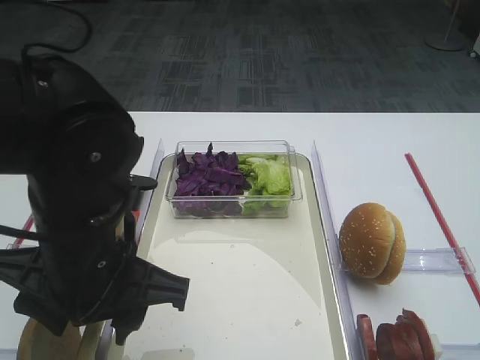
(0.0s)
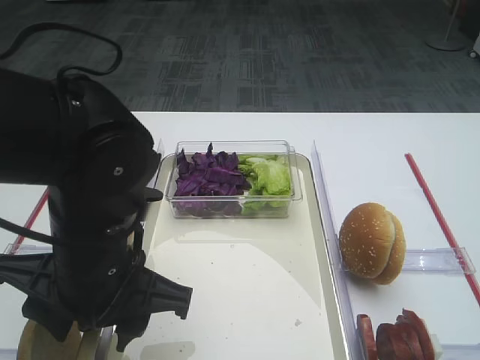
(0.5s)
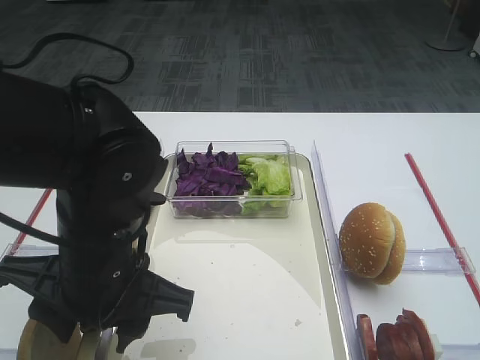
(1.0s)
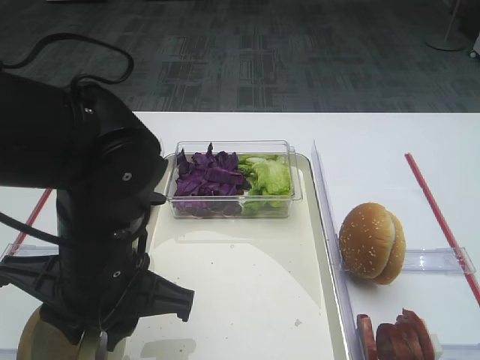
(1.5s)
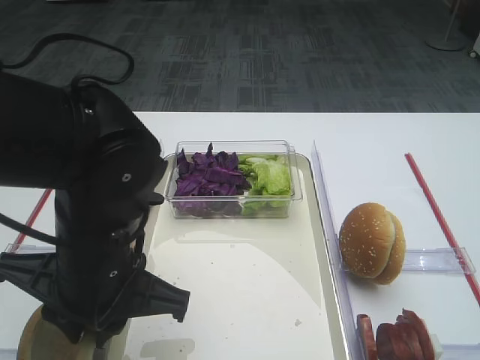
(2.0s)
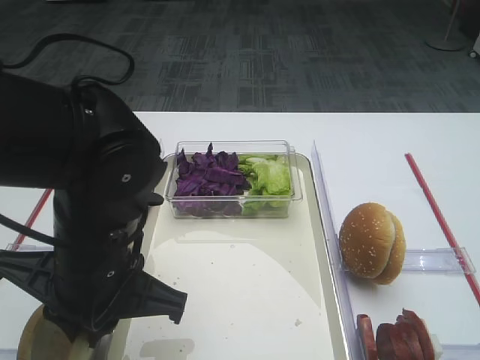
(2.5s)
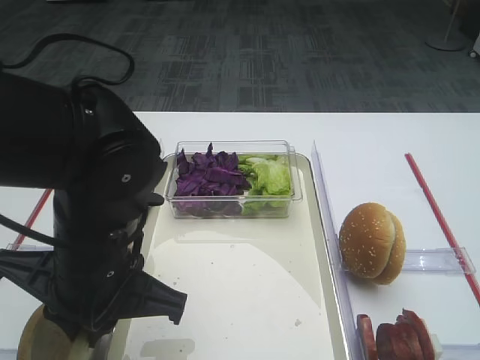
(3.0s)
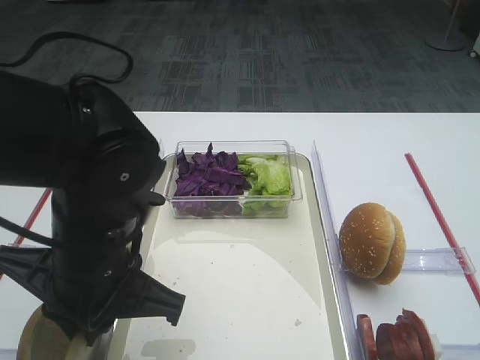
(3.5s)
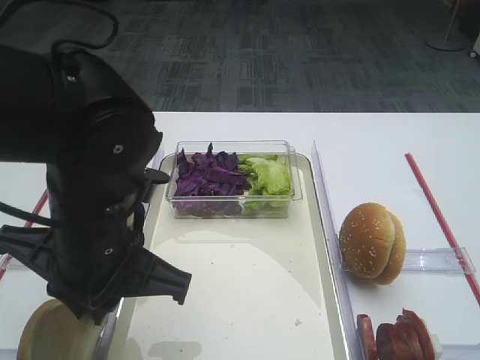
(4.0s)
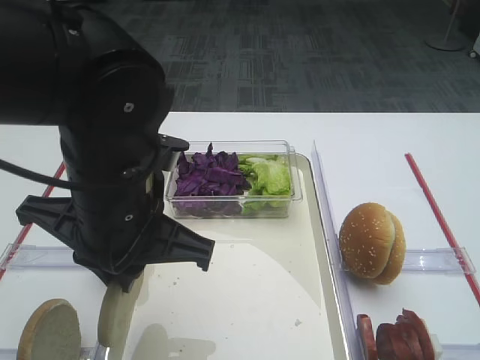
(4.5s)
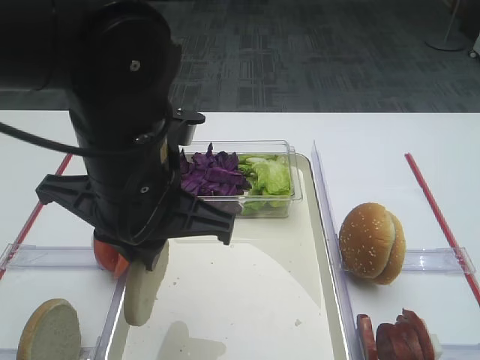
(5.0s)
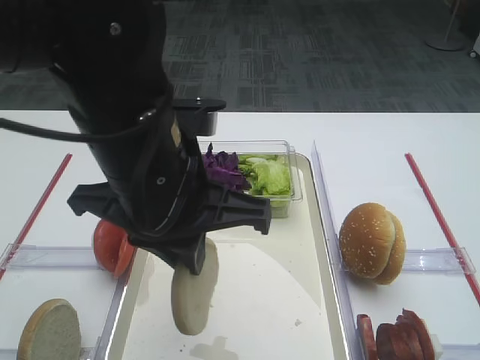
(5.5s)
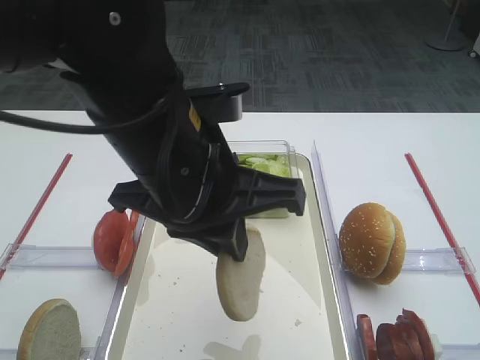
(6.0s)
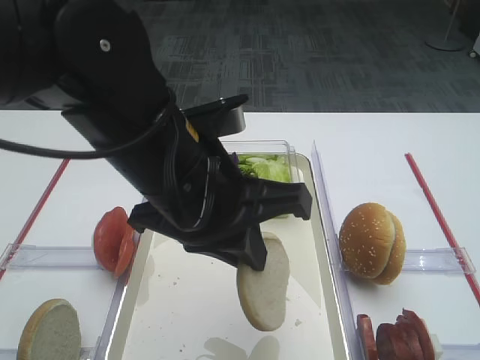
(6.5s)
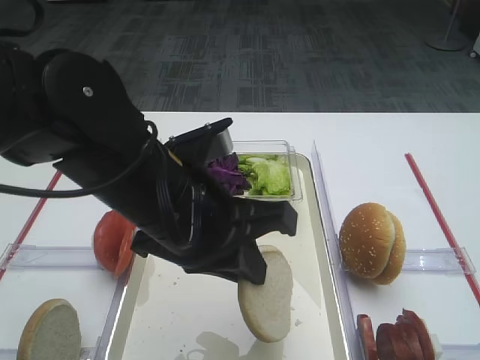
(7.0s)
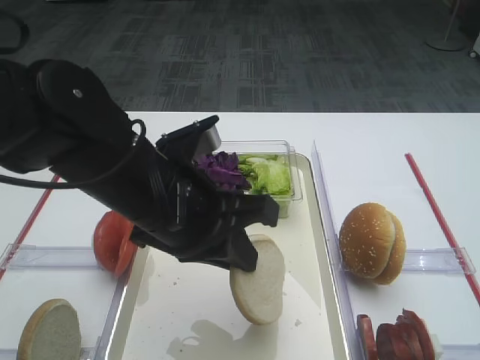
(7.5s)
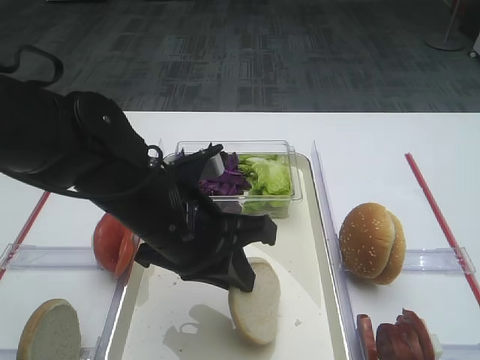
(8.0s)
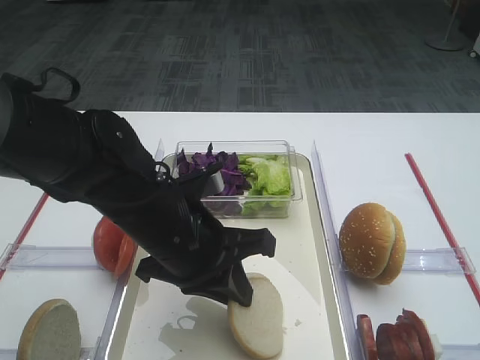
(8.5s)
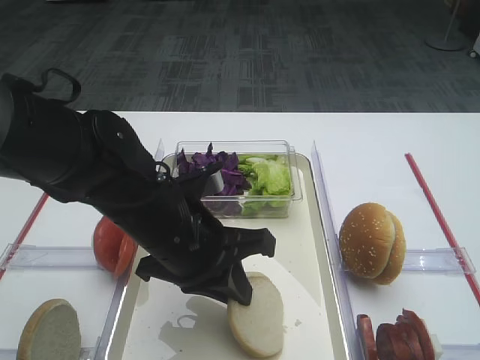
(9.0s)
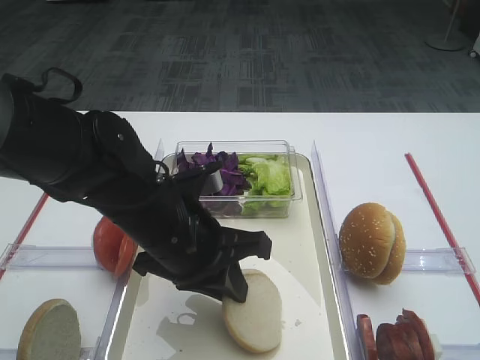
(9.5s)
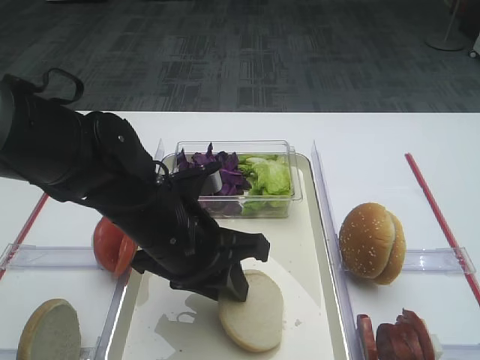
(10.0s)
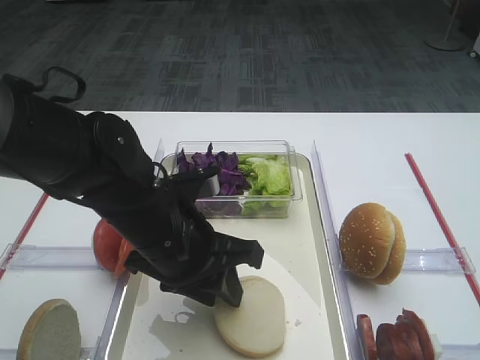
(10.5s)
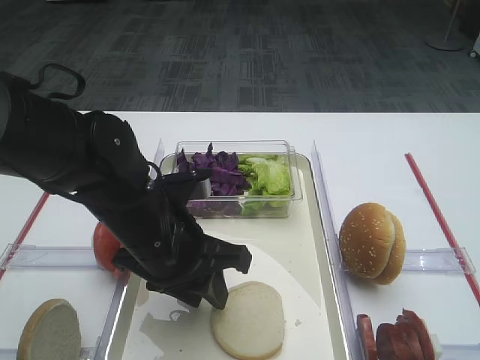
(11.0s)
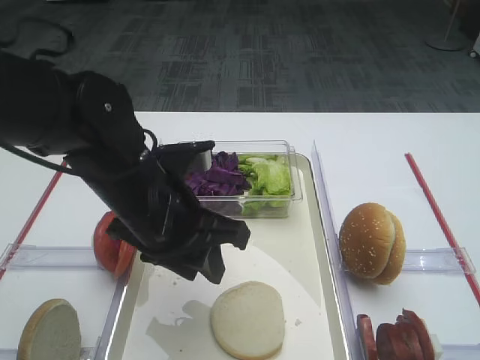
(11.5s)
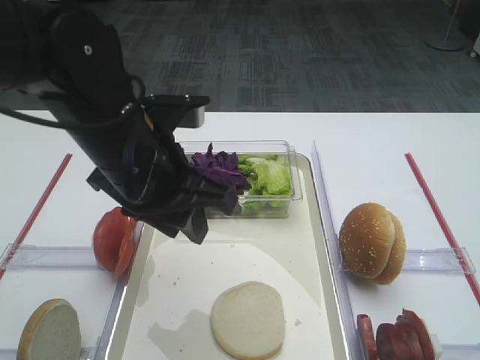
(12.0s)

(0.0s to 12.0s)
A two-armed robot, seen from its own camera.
Step, 0.0s - 4.0s: Pick up the bread slice with the left gripper.
Step, 4.5s - 11.5s: Place the bread slice on the tray with the left gripper.
0.0s - 2.0s: The left gripper closes up.
2.0s - 4.0s: The grippers make only small movements.
4.0s - 6.0s: The left gripper heads upward and to the right, covering some 10 cm.
6.0s - 8.0s: The left gripper goes roughly 10 cm downward.
8.0s - 10.0s: The grippers make only small movements.
10.0s - 12.0s: The left gripper shifts some 10 cm upward.

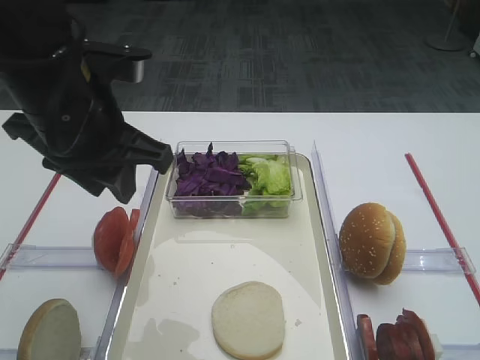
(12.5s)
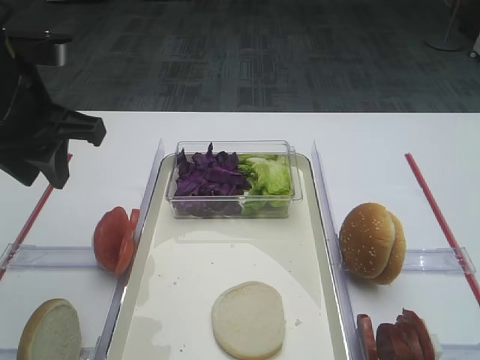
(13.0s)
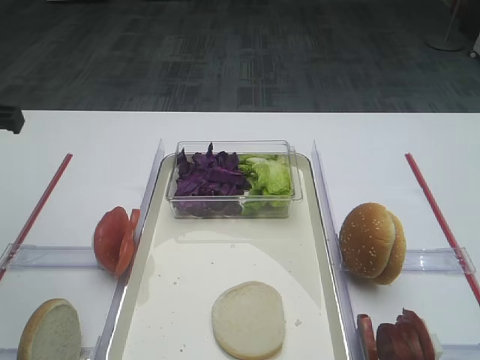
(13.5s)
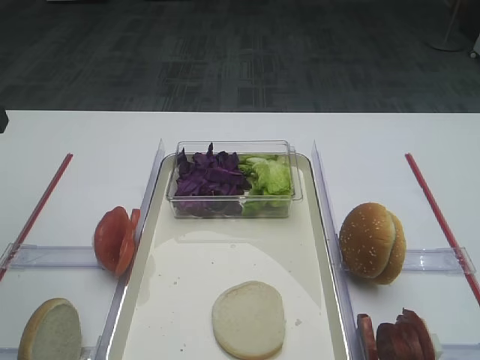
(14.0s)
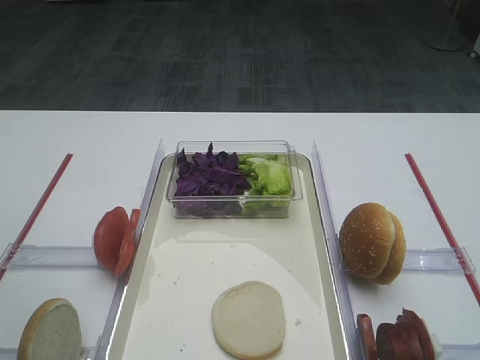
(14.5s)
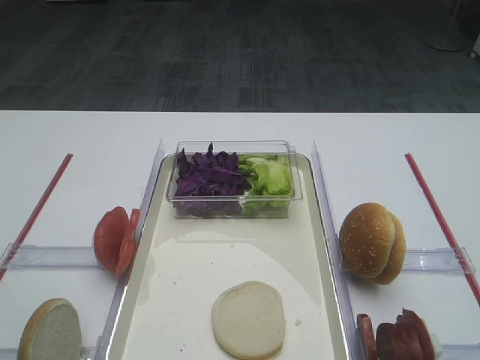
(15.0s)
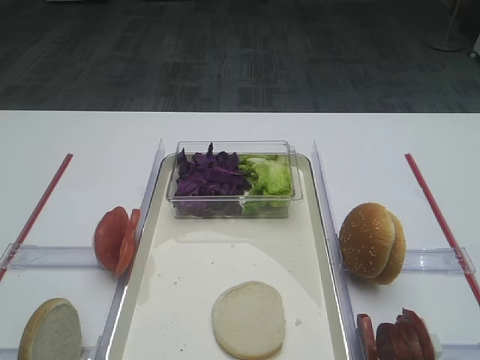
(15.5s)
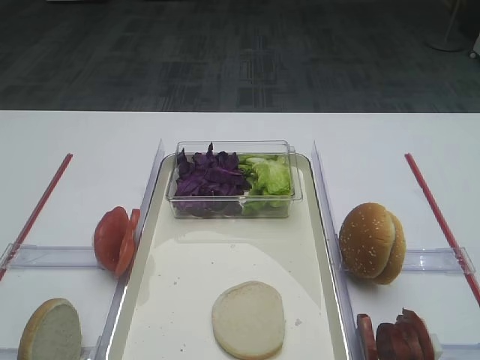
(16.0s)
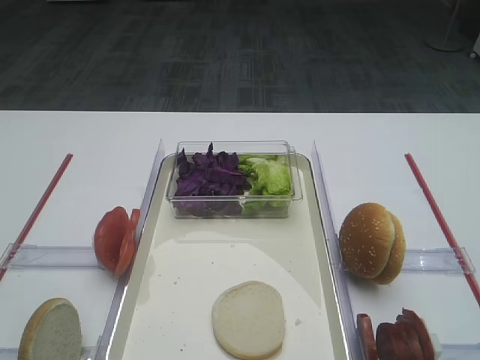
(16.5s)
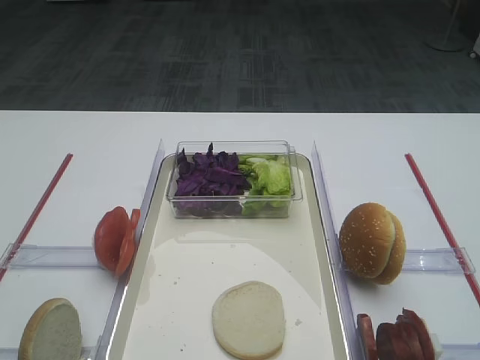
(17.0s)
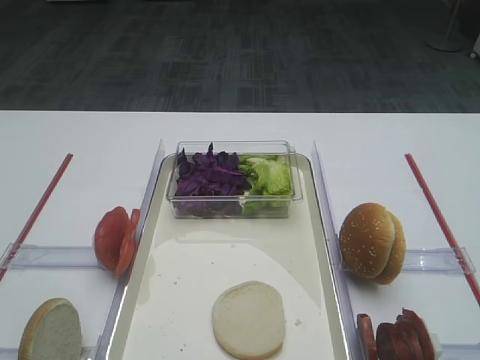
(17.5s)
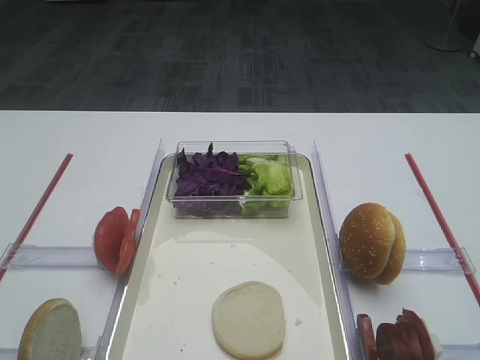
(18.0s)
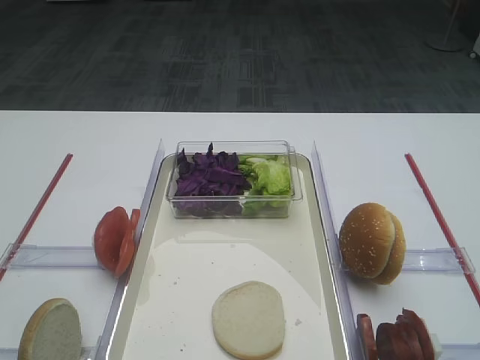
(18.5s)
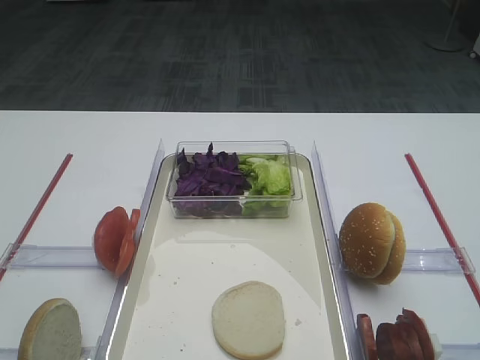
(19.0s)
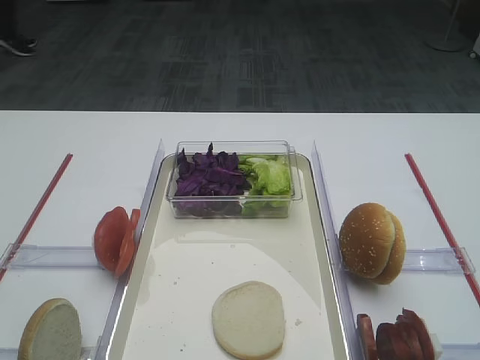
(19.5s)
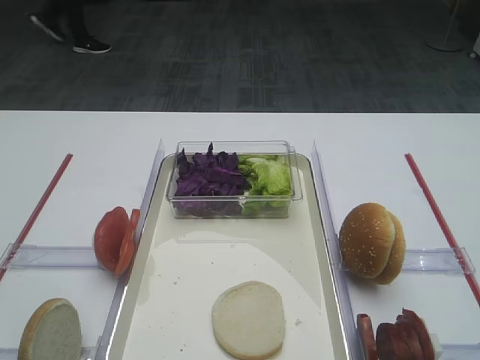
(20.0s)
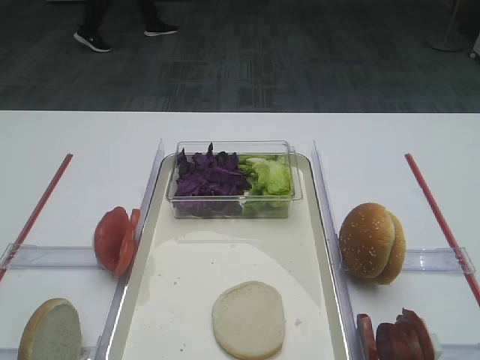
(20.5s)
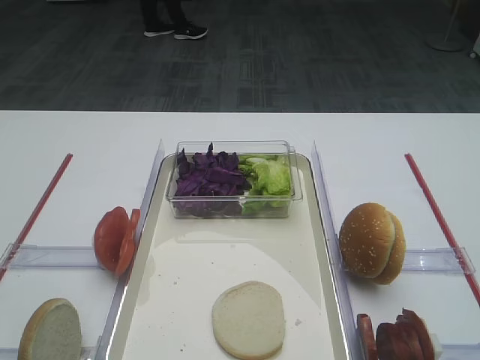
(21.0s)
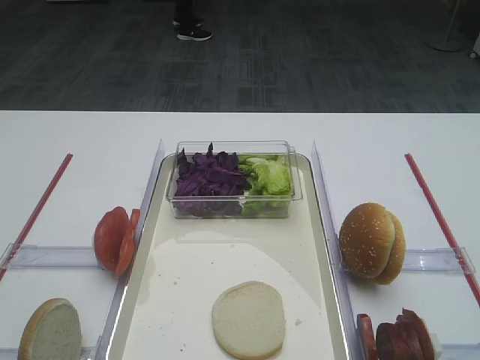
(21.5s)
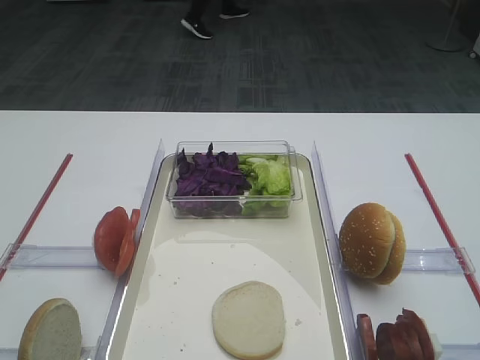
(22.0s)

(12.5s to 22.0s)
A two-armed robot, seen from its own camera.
12.5s - 14.5s: The left gripper travels to the left by approximately 15 cm.
18.0s - 22.0s: Both grippers stay put.

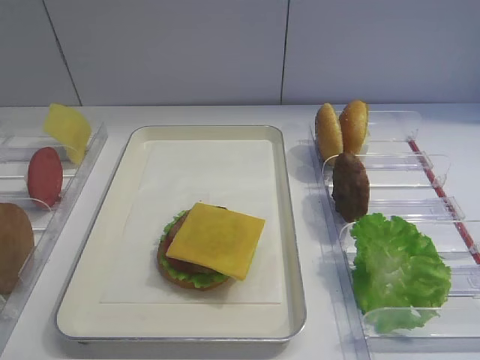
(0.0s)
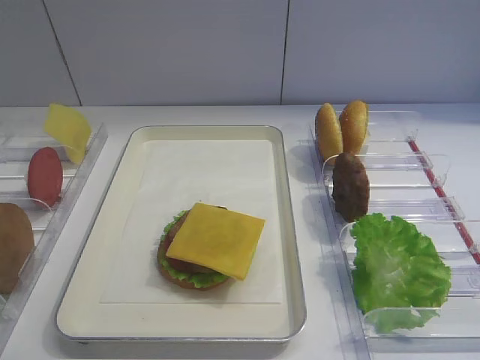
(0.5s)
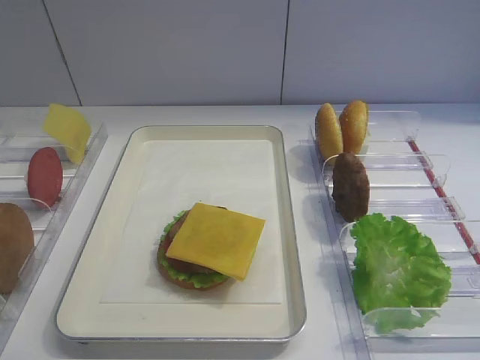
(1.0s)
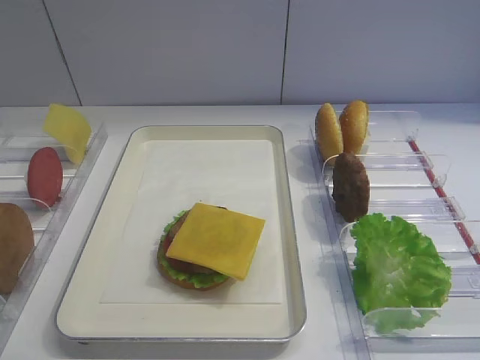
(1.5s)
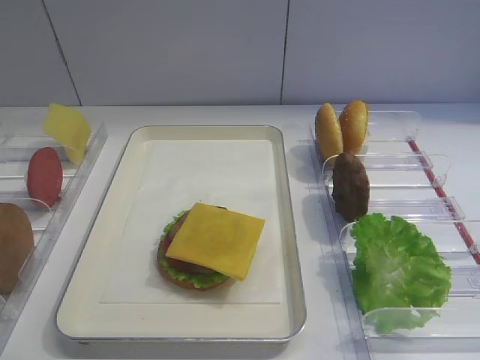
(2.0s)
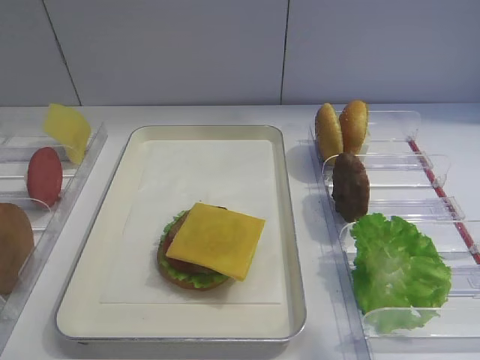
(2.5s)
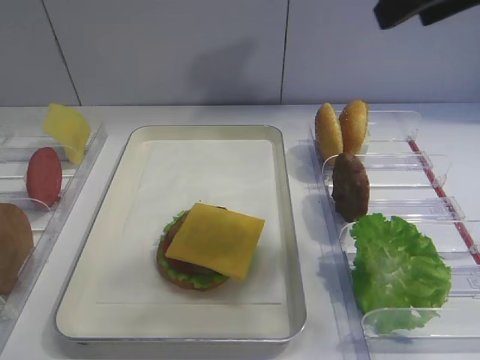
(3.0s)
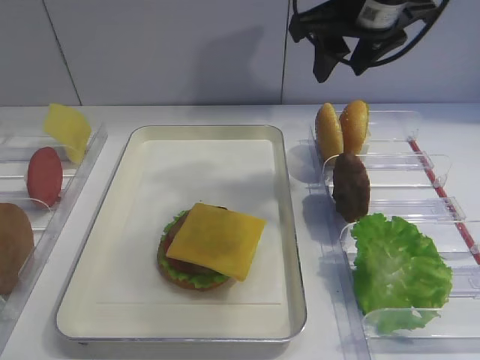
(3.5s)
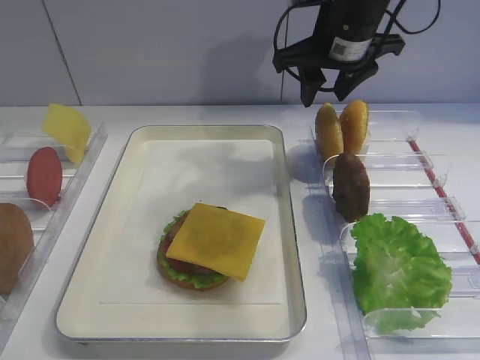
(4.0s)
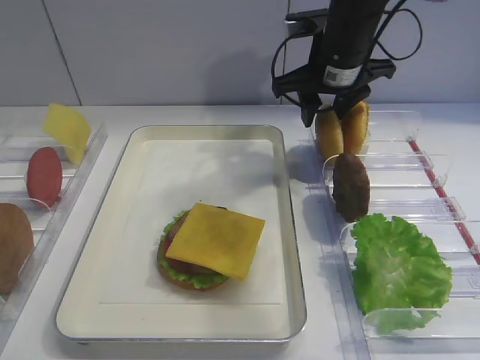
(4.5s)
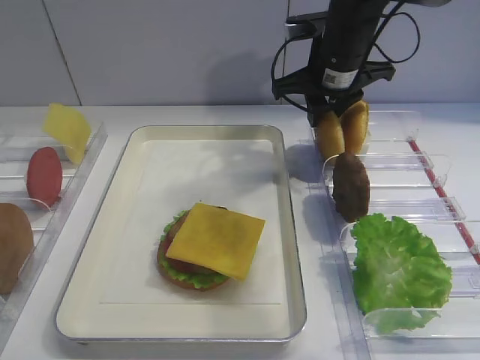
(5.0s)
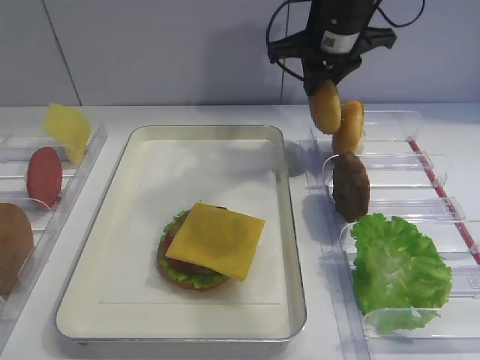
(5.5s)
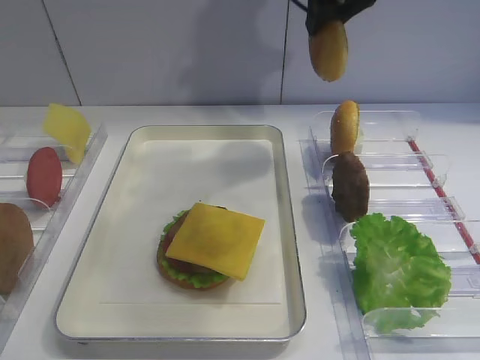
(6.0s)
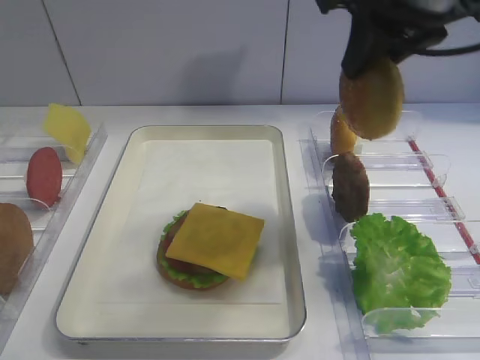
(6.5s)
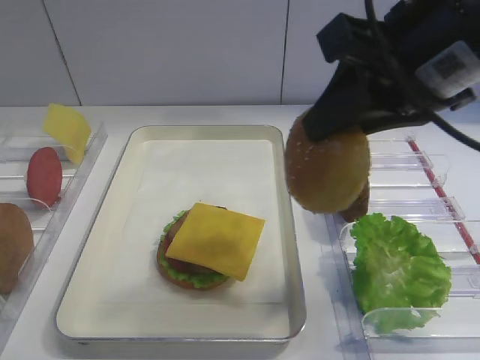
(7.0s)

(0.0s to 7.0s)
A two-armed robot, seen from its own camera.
Step, 0.0s - 5.5s: Pick up the hamburger lid with the right gripper.
2.0s - 3.5s: The right gripper heads forward, covering some 35 cm.
3.5s - 5.0s: The right gripper travels downward and forward by some 10 cm, and closes its fingers.
5.0s - 7.0s: The right gripper moves backward and upward, roughly 25 cm.
